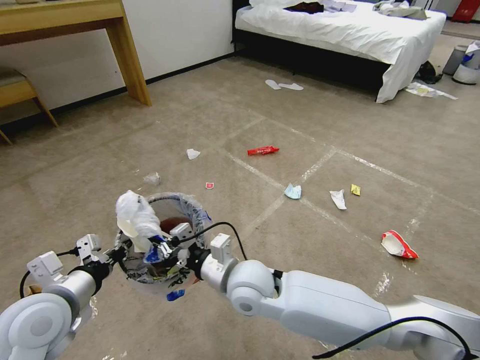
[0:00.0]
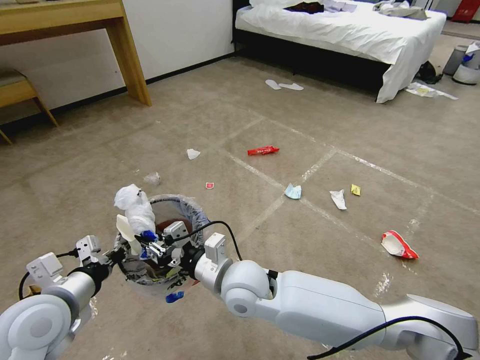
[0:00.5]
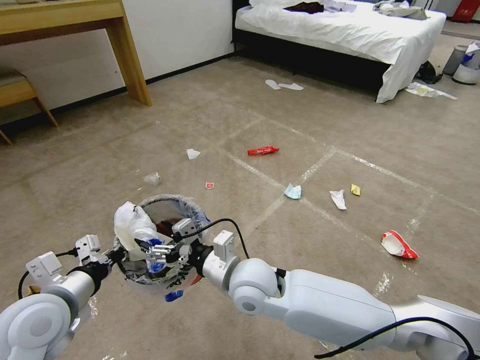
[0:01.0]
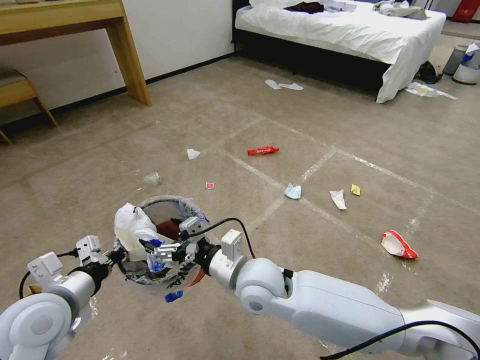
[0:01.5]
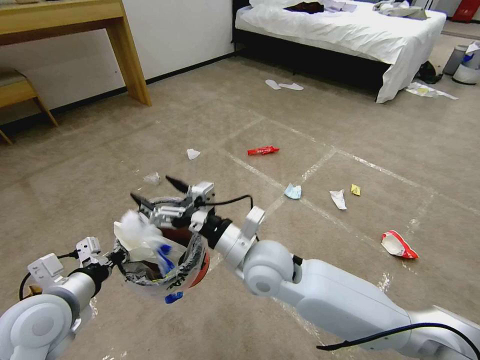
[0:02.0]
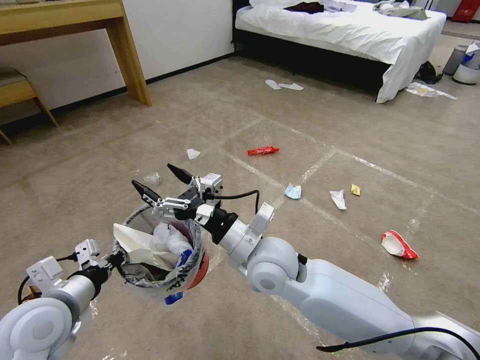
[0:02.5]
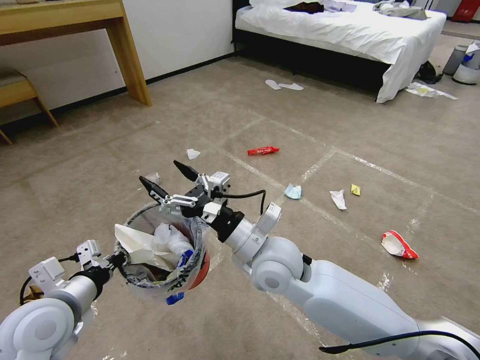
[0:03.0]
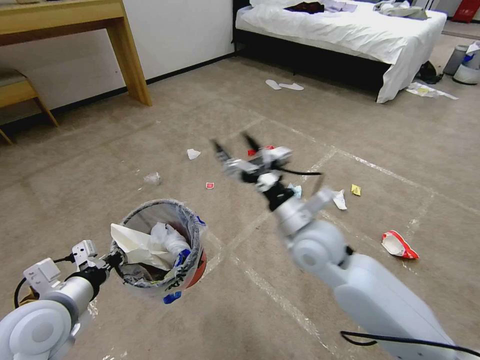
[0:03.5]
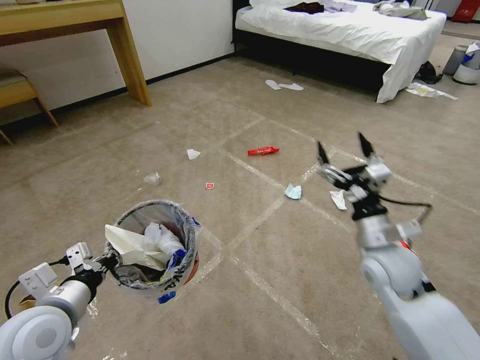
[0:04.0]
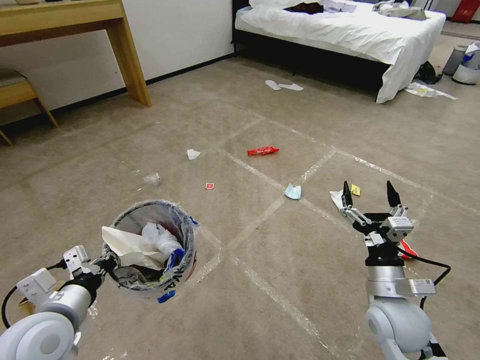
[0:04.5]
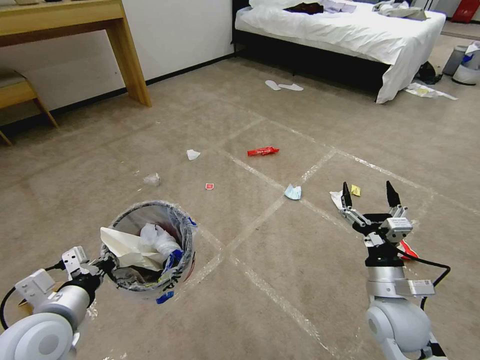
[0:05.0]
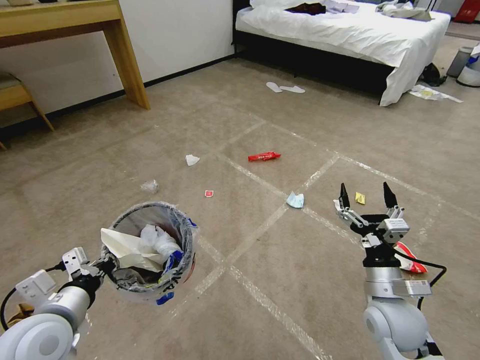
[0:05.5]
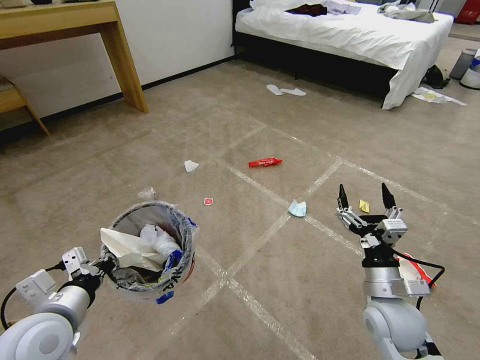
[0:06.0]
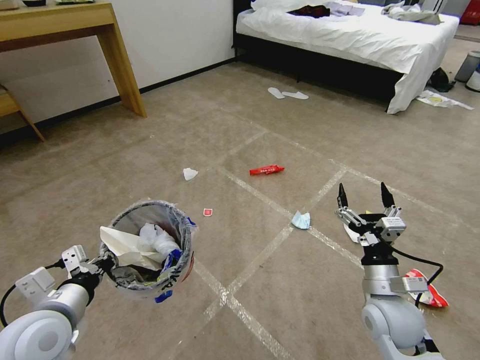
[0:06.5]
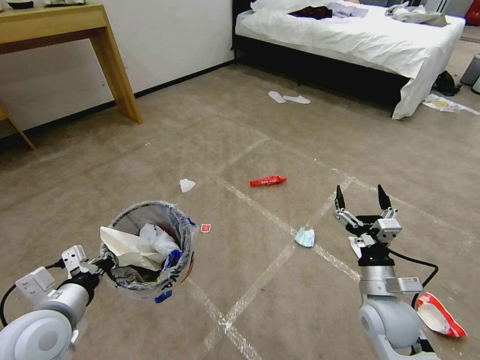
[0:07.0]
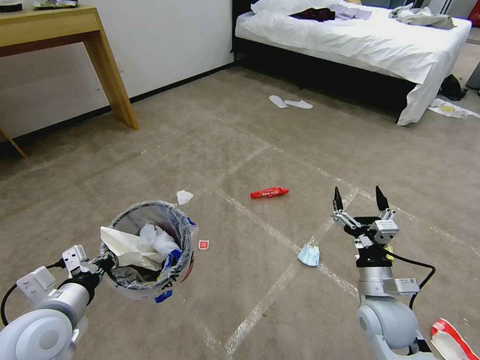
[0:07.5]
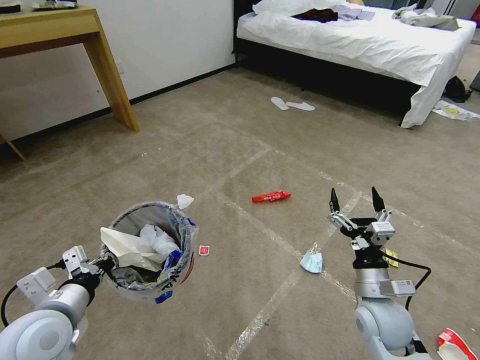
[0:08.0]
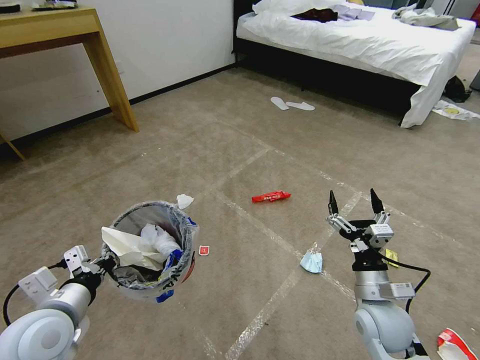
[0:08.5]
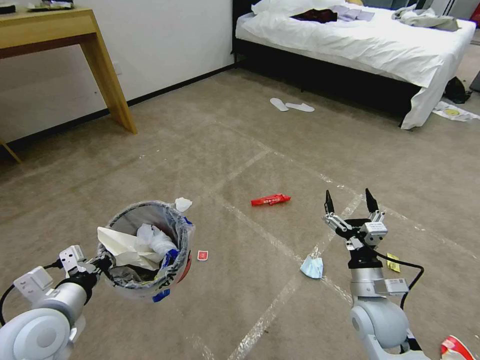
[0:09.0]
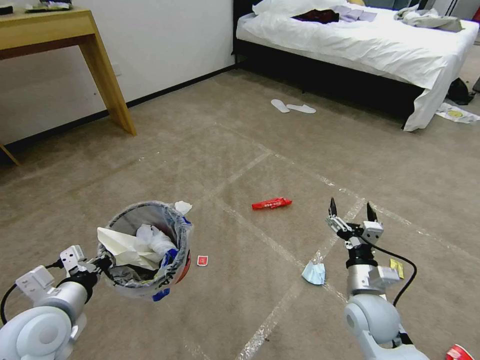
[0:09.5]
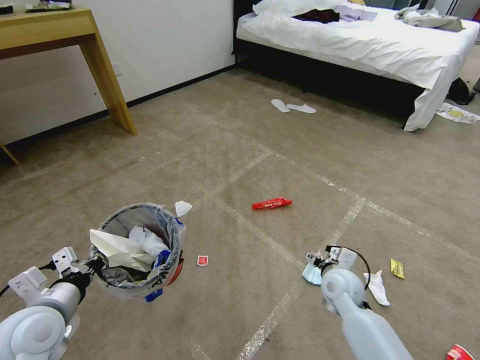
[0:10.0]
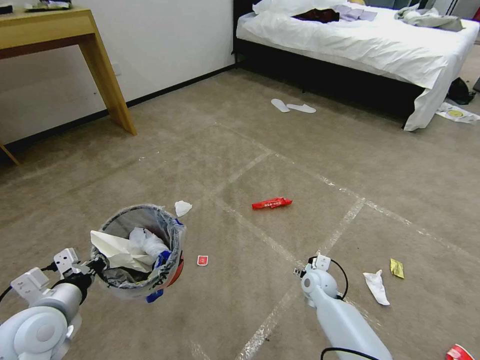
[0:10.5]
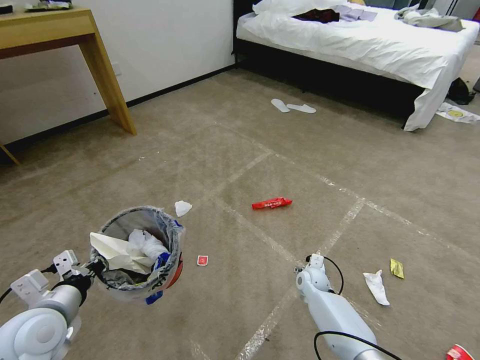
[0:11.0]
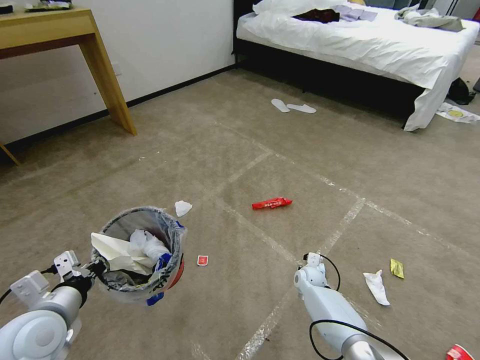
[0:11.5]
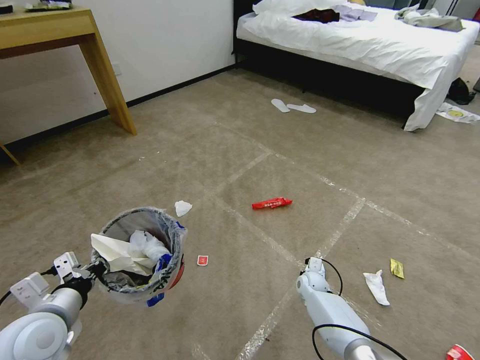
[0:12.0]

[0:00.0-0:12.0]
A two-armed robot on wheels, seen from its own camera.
Task of the whole recording: Pick up the trash bin and place the garbage on the floor into it.
0:00.0 to 0:02.0: The right gripper shifts roughly 5 cm upward, and opens up.
0:02.0 to 0:04.0: The right gripper moves to the right, roughly 25 cm.
0:04.0 to 0:06.0: The right gripper heads backward and downward, covering some 10 cm.
0:08.0 to 0:10.0: The right gripper is displaced forward and downward by roughly 10 cm.
0:10.0 to 0:12.0: The right gripper moves downward and forward, approximately 20 cm, and closes its fingers.

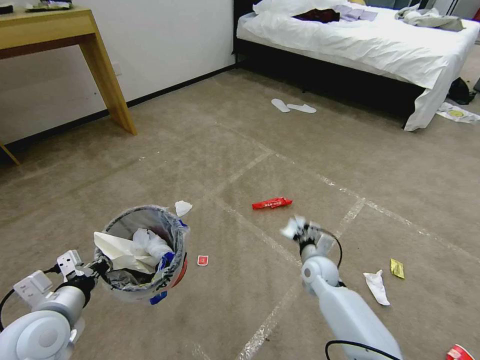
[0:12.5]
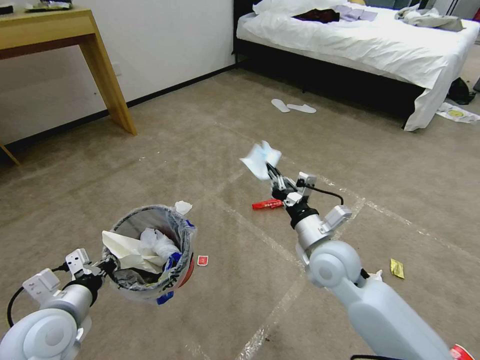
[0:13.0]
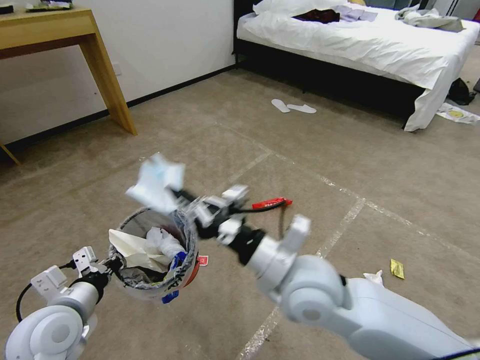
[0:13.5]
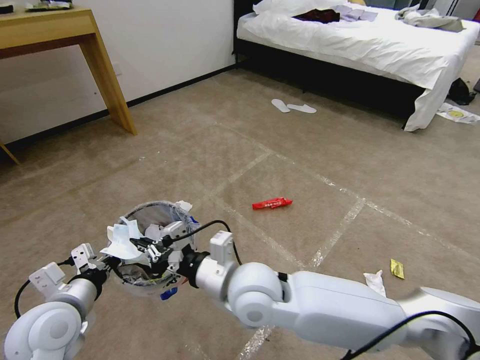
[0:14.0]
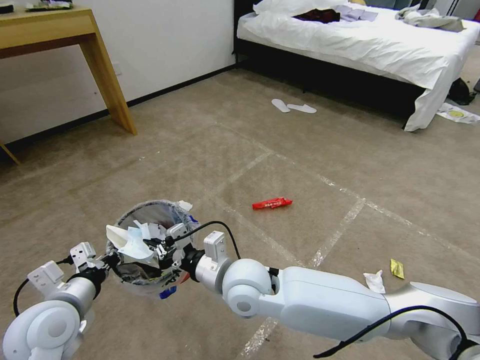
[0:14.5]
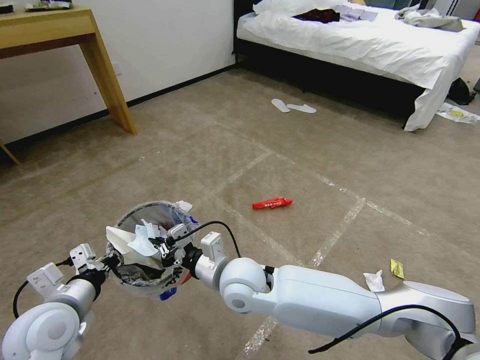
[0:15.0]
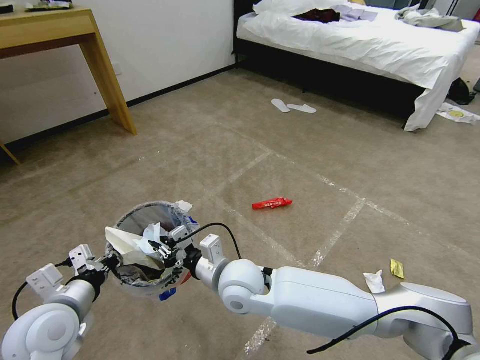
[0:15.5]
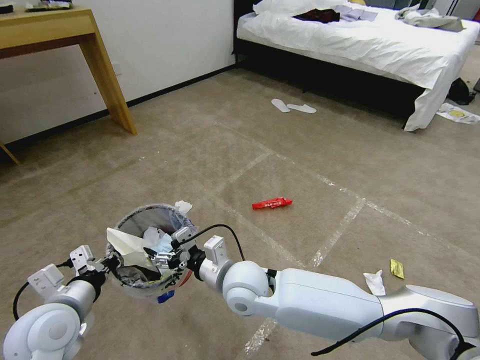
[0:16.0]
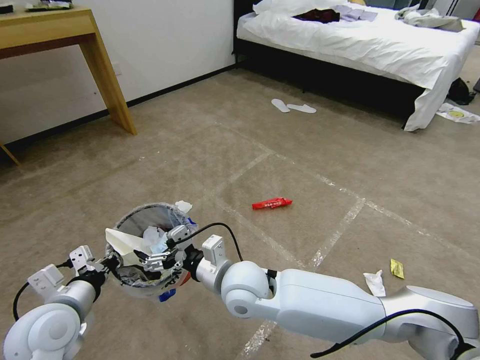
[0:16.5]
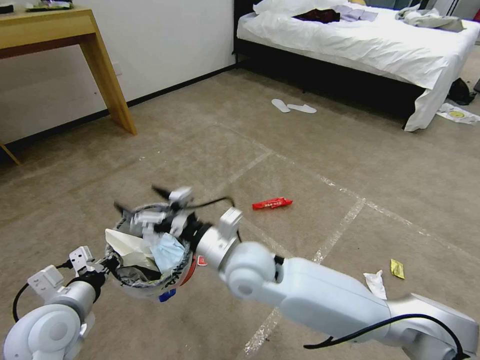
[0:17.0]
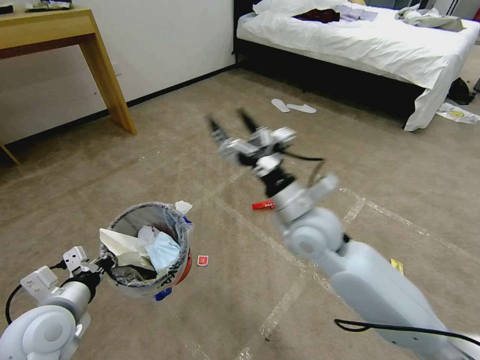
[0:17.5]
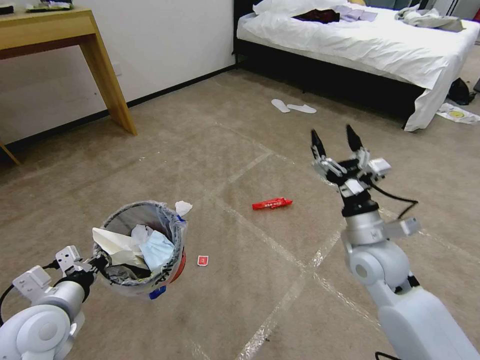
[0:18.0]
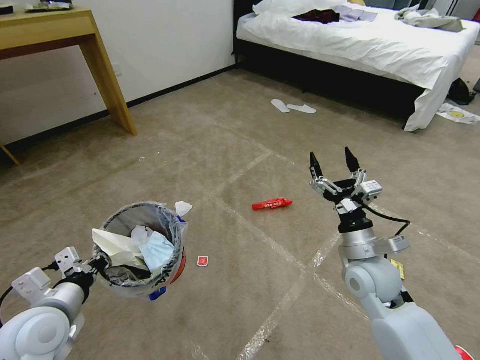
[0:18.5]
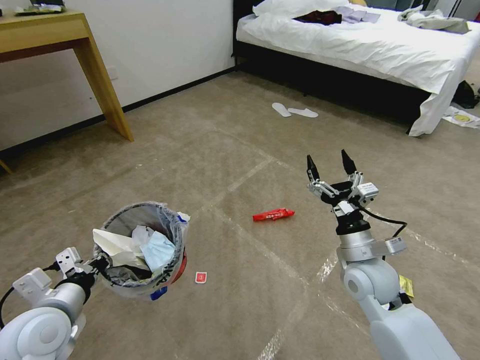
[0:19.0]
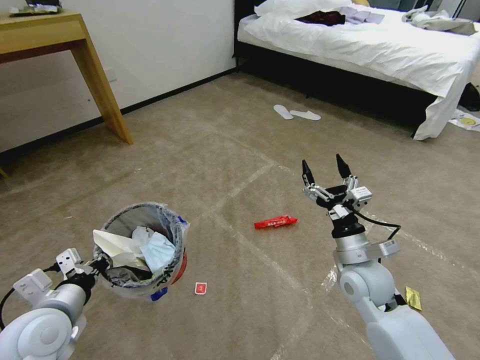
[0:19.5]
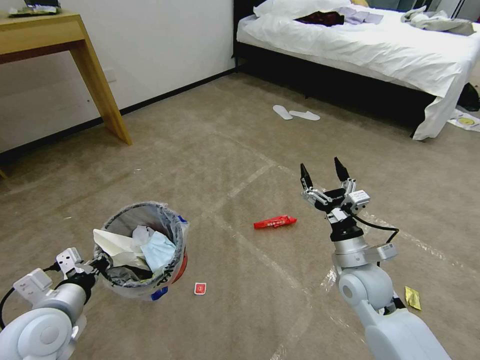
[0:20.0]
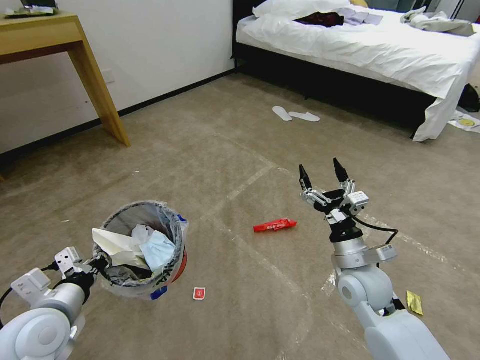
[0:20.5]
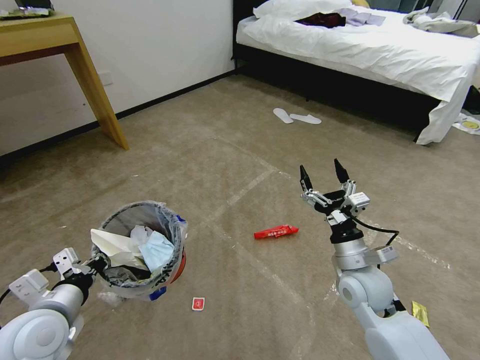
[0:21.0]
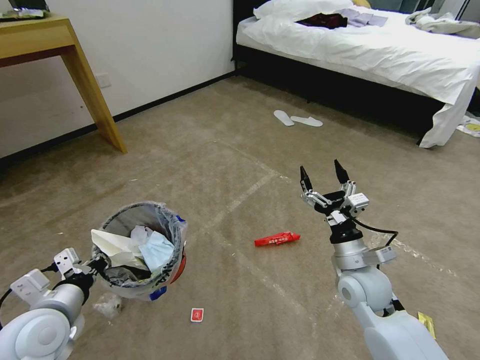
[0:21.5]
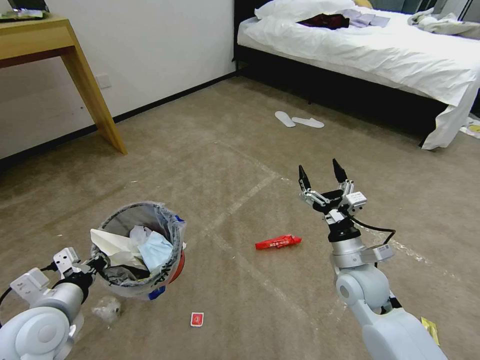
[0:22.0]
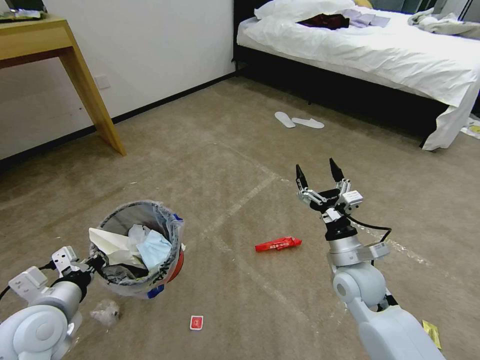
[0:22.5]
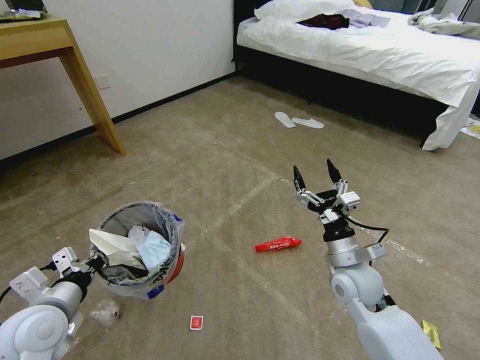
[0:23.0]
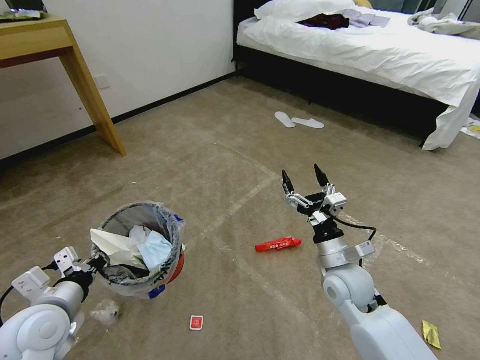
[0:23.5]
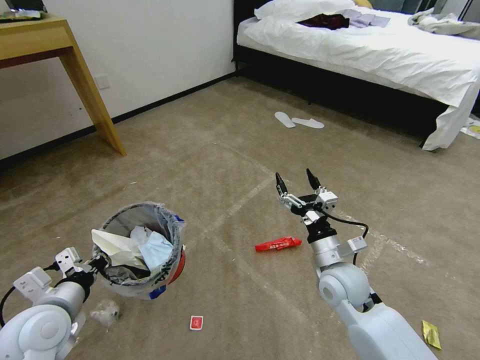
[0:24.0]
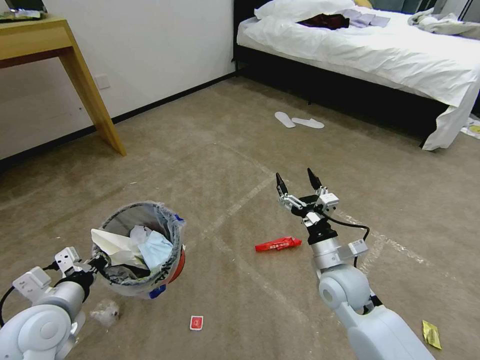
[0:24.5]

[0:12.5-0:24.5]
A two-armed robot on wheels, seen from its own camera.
Task of the whole recording: Pick up the trash bin and place the garbage on the floor into it.
0:12.5 to 0:14.5: The right gripper travels to the left, upward and backward by some 30 cm.
0:14.5 to 0:16.5: The right gripper opens its fingers.
0:16.5 to 0:18.5: The right gripper moves to the right, about 25 cm.
0:18.5 to 0:20.5: There are only small adjustments of the grippers.
0:20.5 to 0:22.5: Both grippers stay put.
0:22.5 to 0:24.5: The grippers make only small movements.

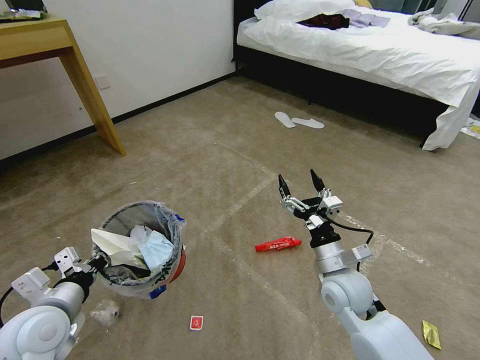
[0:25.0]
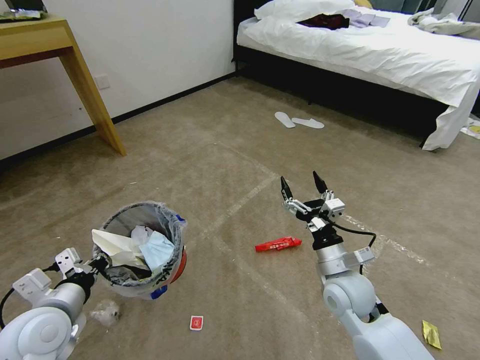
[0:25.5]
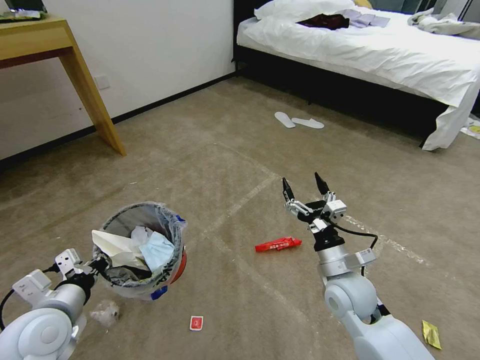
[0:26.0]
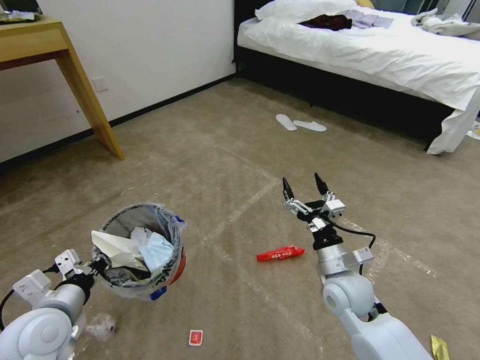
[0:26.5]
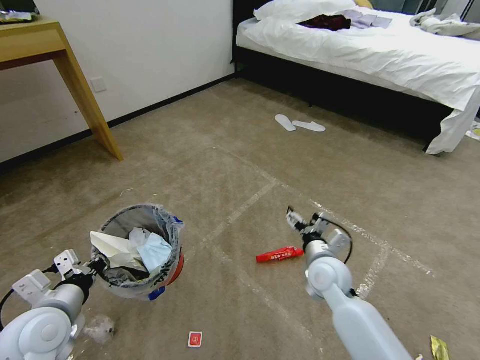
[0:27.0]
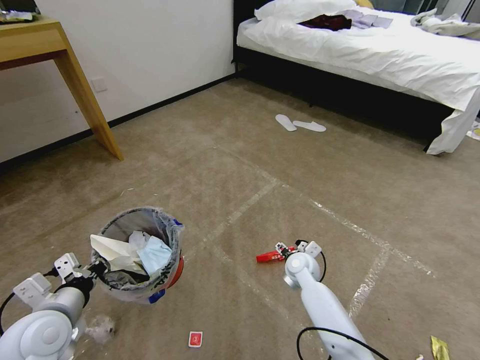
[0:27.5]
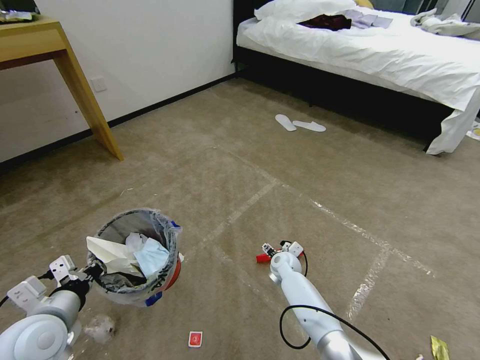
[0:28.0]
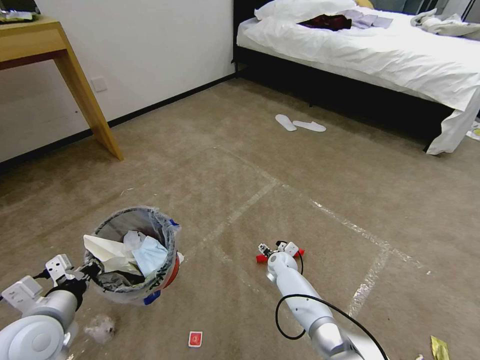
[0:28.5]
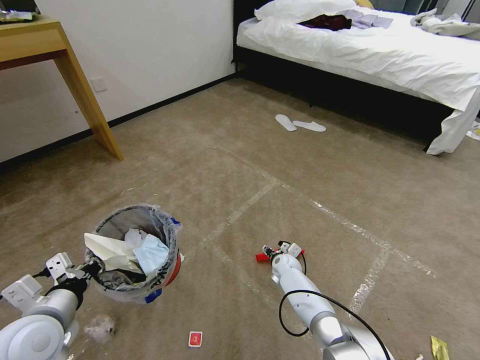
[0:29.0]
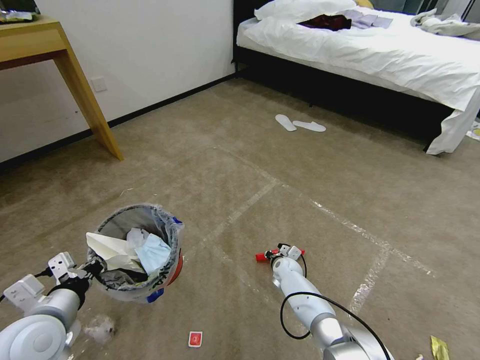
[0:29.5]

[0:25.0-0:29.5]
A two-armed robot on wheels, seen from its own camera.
Task of the whole recording: Pick up the trash bin and place the garbage on the floor into it.
0:25.0 to 0:27.0: The right gripper ends up roughly 5 cm from where it was.
0:27.0 to 0:29.5: The right gripper heads downward and forward, covering approximately 25 cm, and closes.
